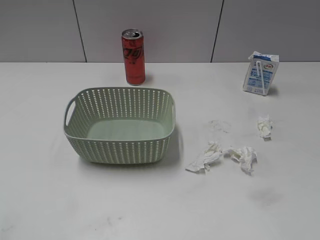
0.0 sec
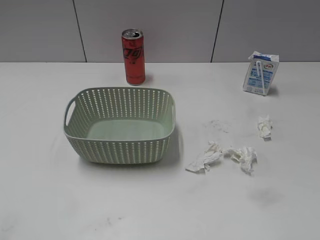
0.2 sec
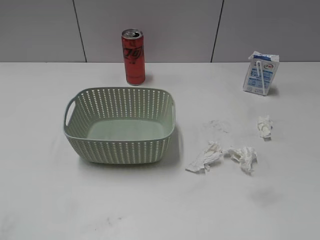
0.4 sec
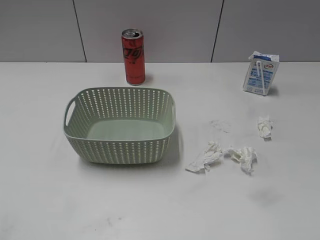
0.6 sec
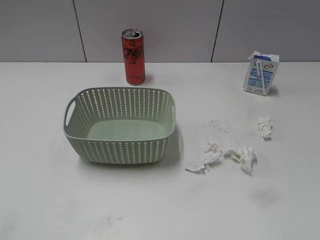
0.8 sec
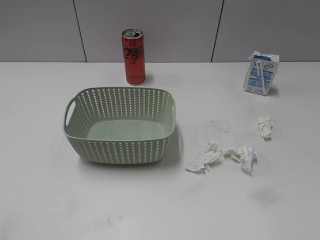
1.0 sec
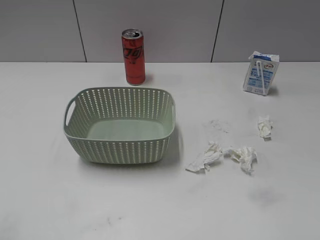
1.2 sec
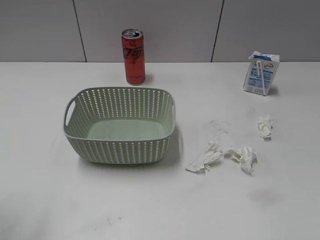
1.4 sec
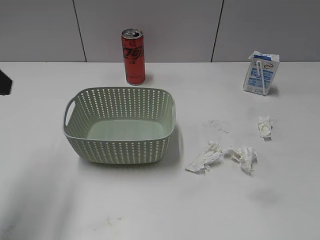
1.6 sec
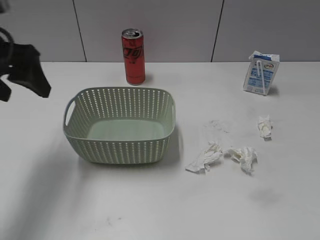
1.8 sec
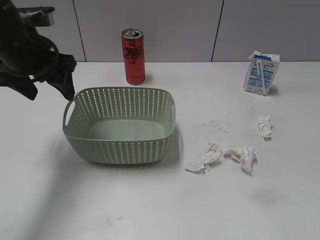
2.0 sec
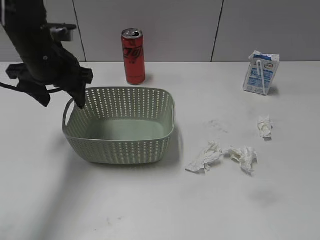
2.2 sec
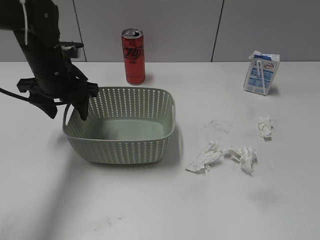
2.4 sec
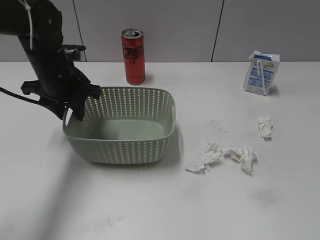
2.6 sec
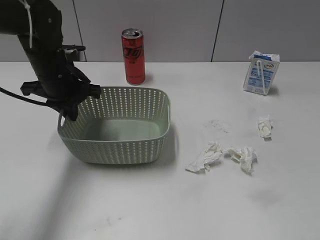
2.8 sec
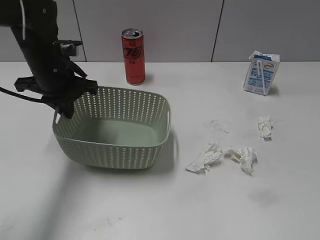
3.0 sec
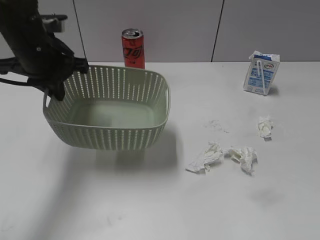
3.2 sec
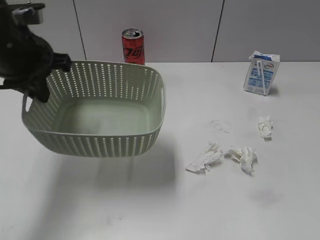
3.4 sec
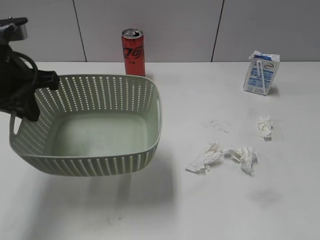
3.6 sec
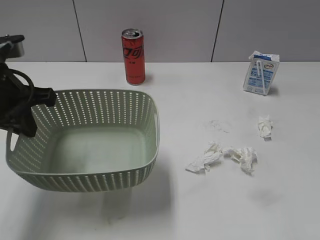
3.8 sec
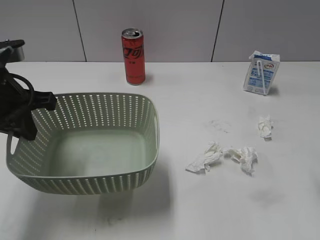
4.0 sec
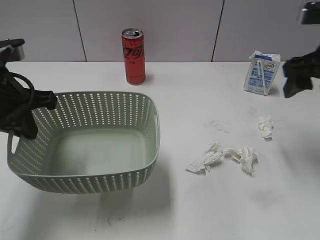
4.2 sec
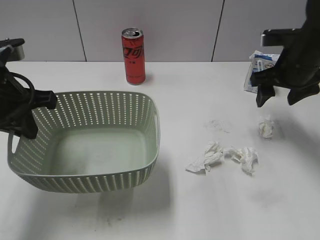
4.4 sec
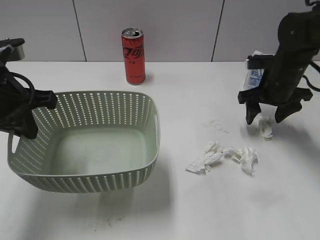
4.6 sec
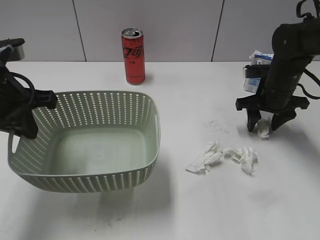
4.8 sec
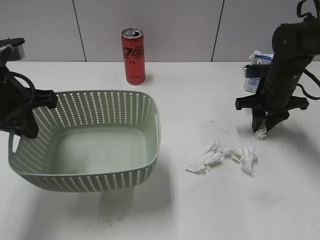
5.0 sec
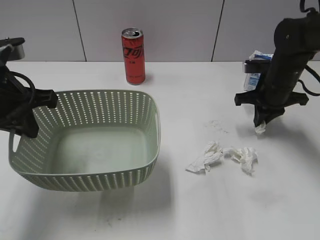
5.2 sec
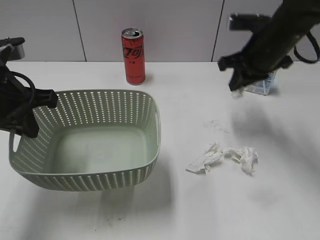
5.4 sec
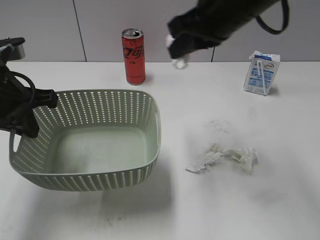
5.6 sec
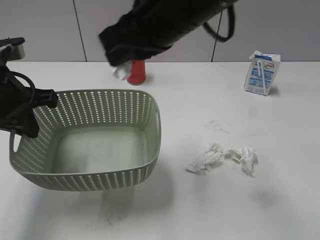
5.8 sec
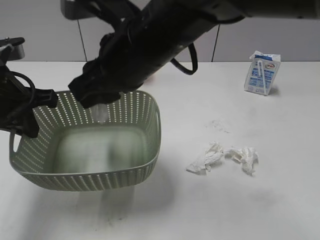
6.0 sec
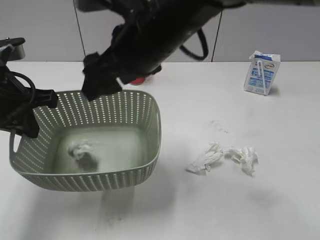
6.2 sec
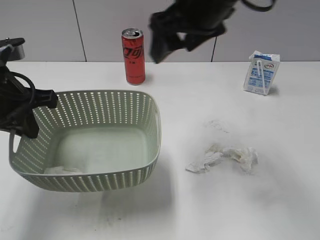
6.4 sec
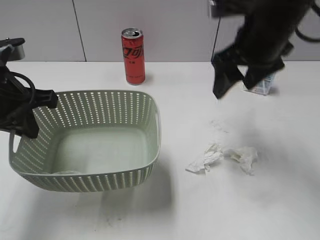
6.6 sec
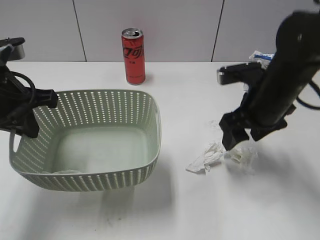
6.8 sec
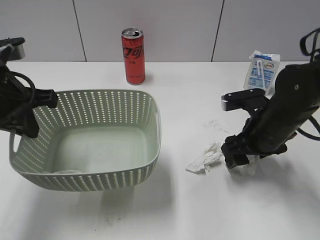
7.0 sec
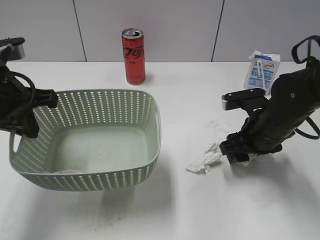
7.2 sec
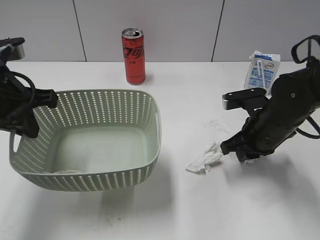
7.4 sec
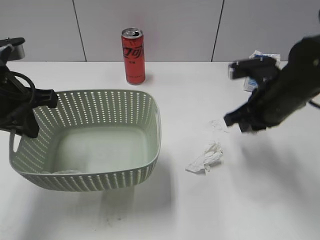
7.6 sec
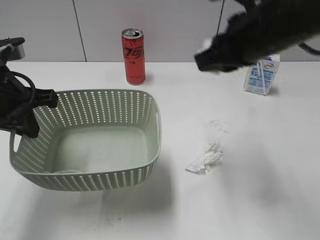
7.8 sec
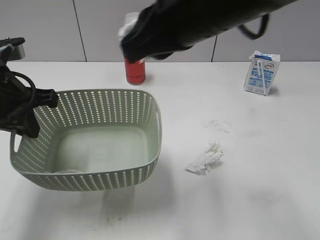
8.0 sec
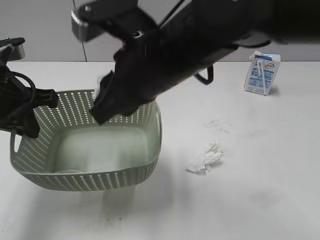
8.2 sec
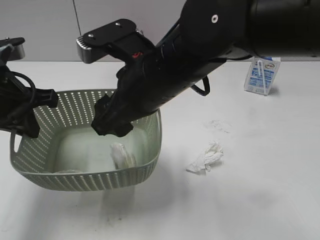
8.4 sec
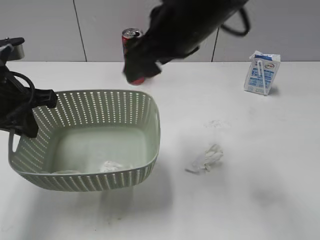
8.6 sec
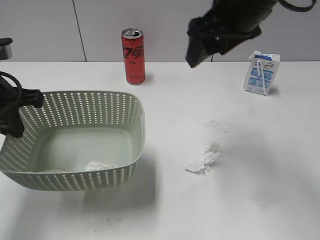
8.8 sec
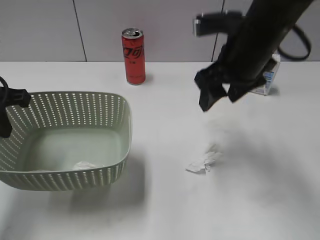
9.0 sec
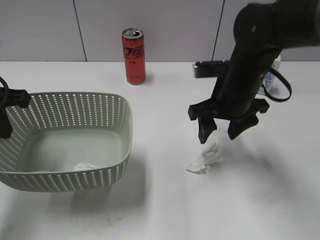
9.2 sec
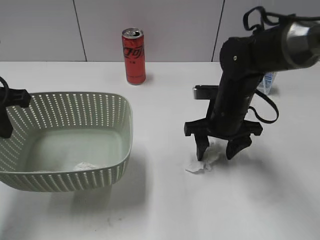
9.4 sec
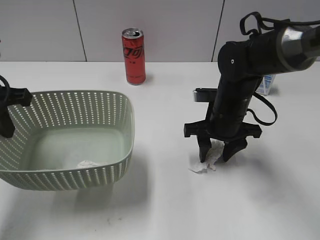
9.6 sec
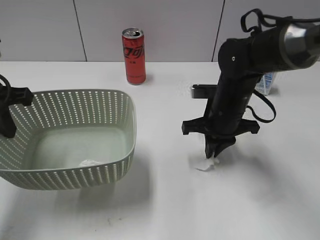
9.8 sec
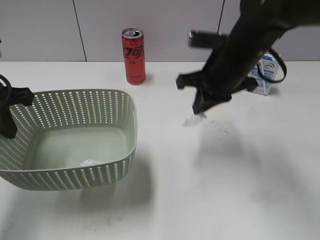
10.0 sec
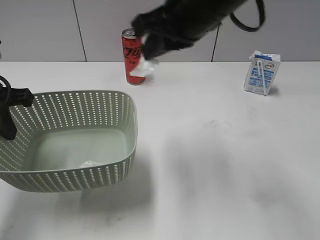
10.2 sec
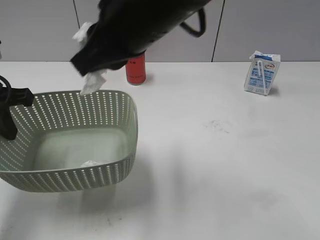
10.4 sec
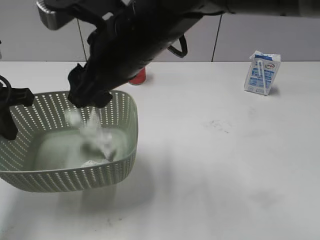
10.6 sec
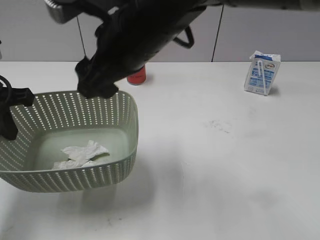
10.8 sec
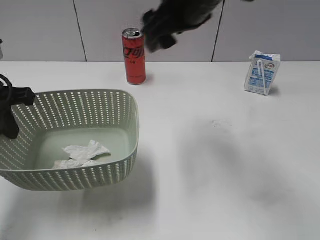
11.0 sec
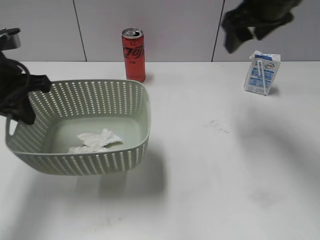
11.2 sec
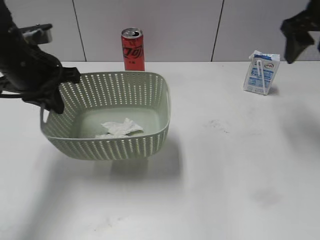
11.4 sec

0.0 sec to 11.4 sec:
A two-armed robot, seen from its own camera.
Step, 1.6 sec to 3.0 sec: Grasp the basket with left gripper.
Step, 3.2 sec to 3.4 sec: Lift the basket with left gripper.
Step, 3.6 sec to 5.2 sec: Grasp the waste paper with right gripper.
Step, 5.4 sec to 6.4 sec: Place the waste paper in the basket with right gripper.
Step, 6.6 sec to 7.2 sec: Grasp the waste paper with right gripper.
Step, 7.4 sec to 8.4 sec: Place the waste paper in the basket with right gripper.
Step, 8.6 sec to 9.8 sec: Grasp the waste paper with right gripper.
Step, 10.0 sec to 10.8 sec: Place the waste paper in the basket with right gripper.
1.4 sec to 2.8 sec: The left gripper goes approximately 30 cm forward, downward and to the right, and closes.
2.8 sec to 4.2 sec: The right gripper heads forward, covering approximately 30 cm. Meanwhile the left gripper moves backward and upward, about 15 cm.
4.2 sec to 5.6 sec: The right gripper heads to the left, covering roughly 15 cm, goes downward and returns, roughly 15 cm each way, and closes.
5.6 sec to 7.2 sec: The right gripper moves downward and to the right, approximately 20 cm, and opens.
7.2 sec to 8.6 sec: The right gripper swings up and down, about 20 cm each way, with 2 reversals, and closes and opens again.
8.6 sec to 10.0 sec: The right gripper travels to the right by roughly 5 cm, travels downward and back again, some 20 cm each way, and closes its fingers.
10.0 sec to 11.4 sec: The right gripper heads to the right and upward, covering roughly 15 cm, and opens up. Meanwhile the left gripper goes some 10 cm forward and to the right.

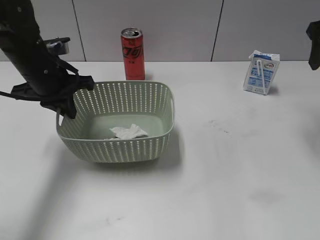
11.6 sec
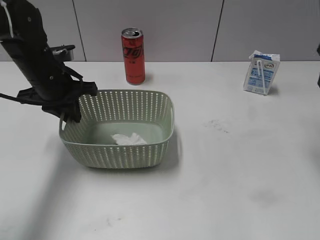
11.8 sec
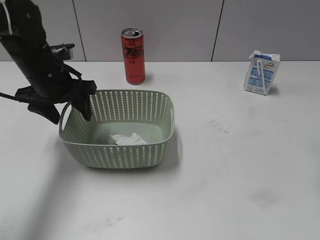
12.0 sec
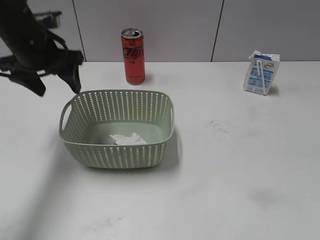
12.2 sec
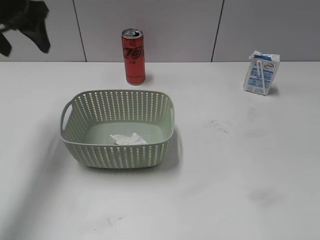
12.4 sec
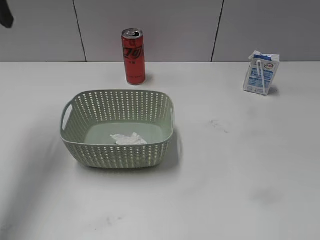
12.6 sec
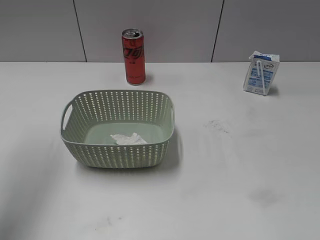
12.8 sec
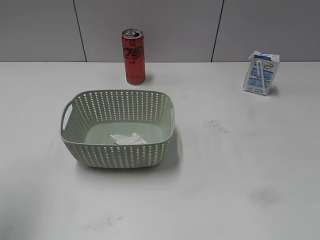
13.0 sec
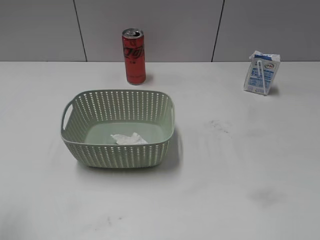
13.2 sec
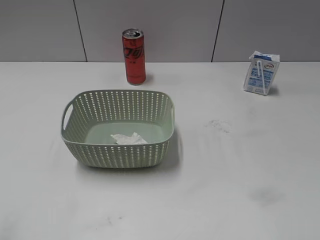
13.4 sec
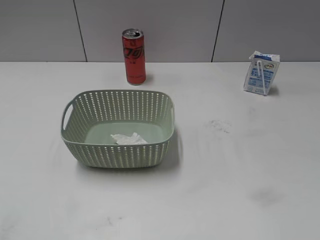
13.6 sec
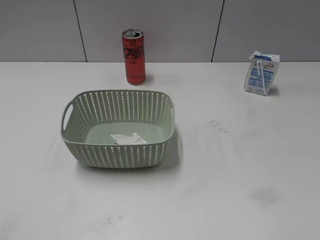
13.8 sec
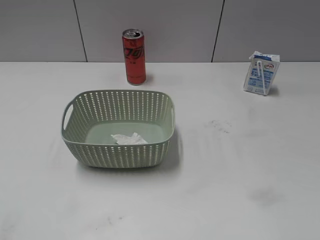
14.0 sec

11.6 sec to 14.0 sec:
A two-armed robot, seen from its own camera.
11.6 sec to 12.8 sec: The right gripper shifts approximately 35 cm backward. Meanwhile the left gripper moves upward, to the left and backward, about 25 cm, and opens.
12.8 sec to 14.0 sec: The left gripper shifts some 30 cm backward and downward.

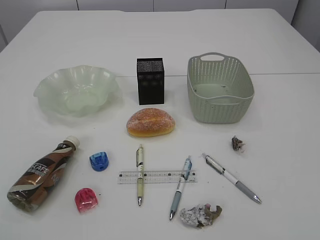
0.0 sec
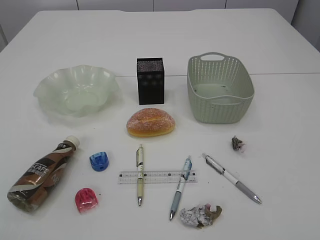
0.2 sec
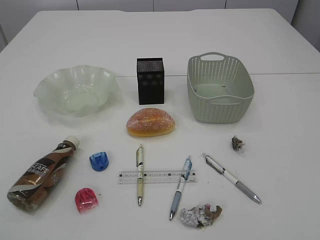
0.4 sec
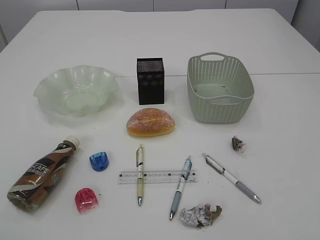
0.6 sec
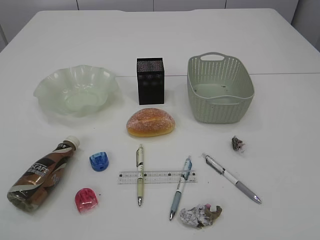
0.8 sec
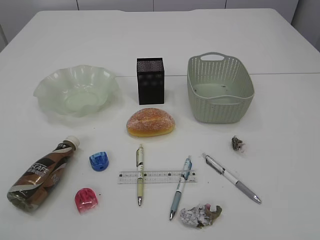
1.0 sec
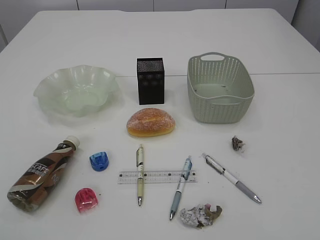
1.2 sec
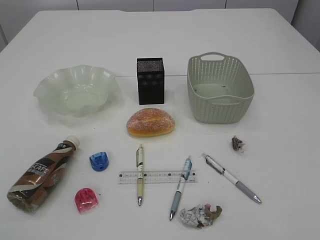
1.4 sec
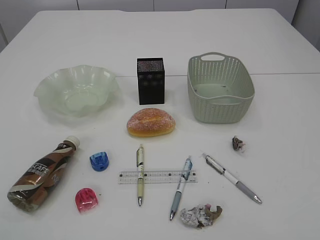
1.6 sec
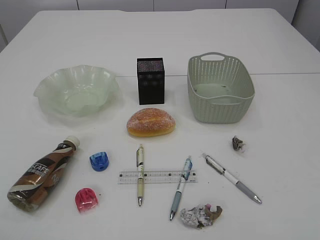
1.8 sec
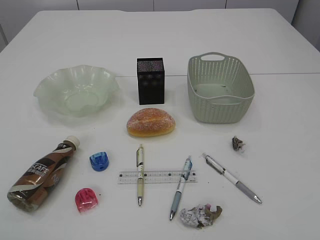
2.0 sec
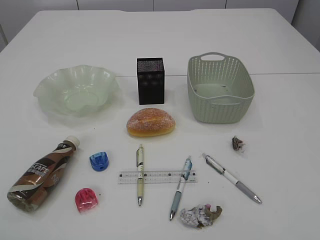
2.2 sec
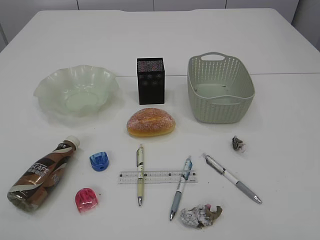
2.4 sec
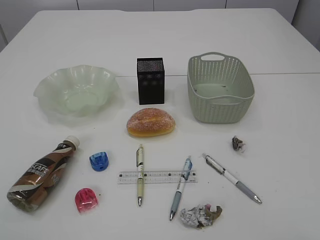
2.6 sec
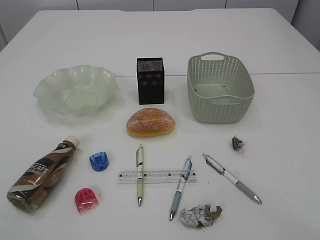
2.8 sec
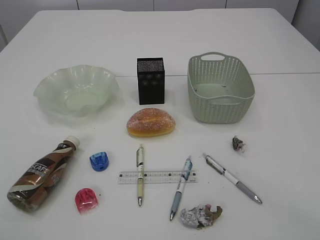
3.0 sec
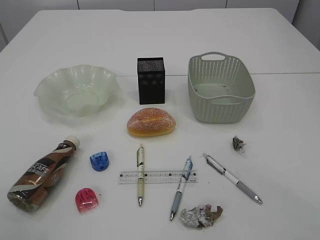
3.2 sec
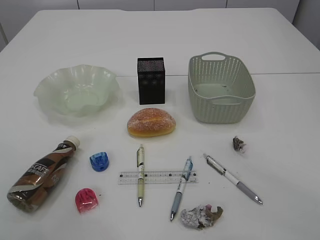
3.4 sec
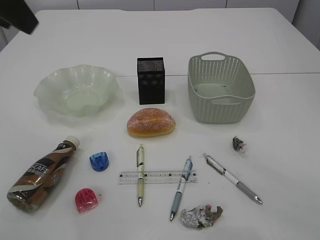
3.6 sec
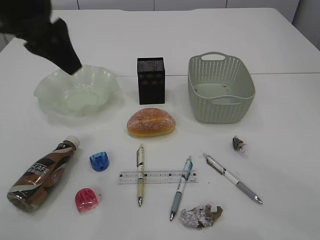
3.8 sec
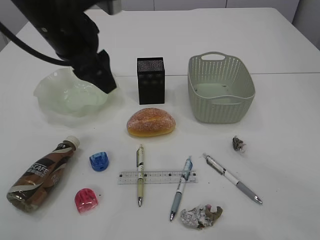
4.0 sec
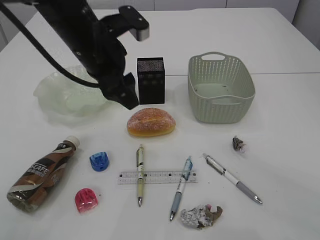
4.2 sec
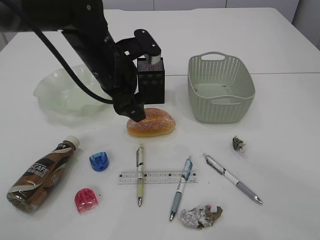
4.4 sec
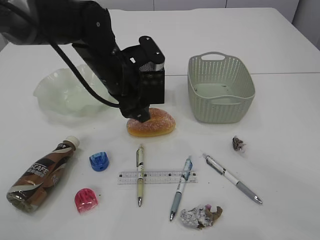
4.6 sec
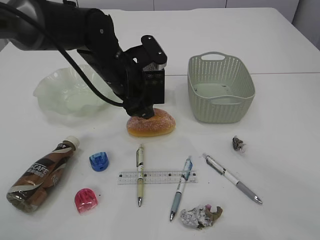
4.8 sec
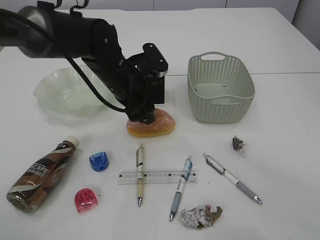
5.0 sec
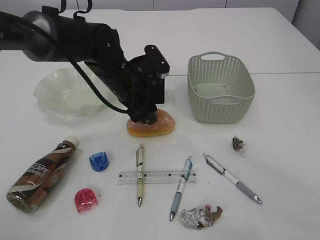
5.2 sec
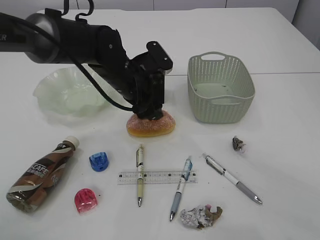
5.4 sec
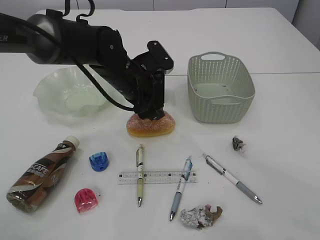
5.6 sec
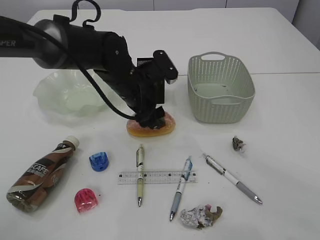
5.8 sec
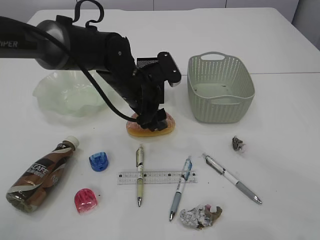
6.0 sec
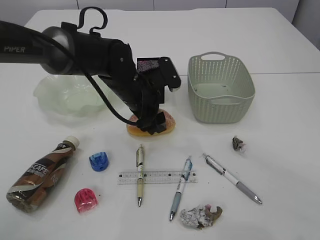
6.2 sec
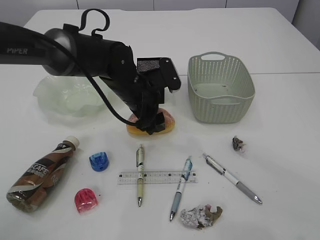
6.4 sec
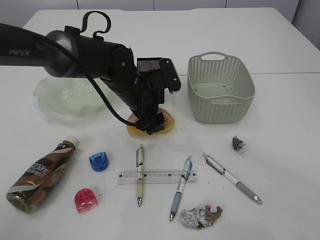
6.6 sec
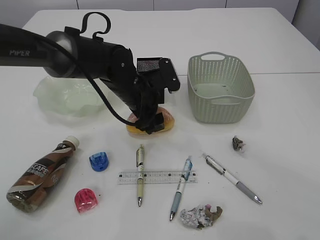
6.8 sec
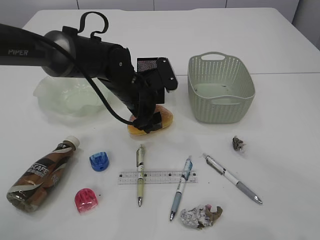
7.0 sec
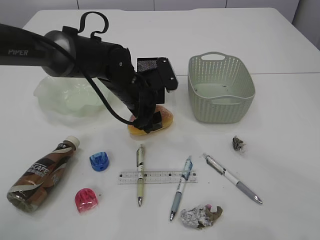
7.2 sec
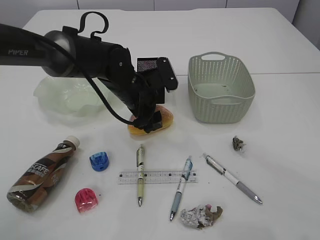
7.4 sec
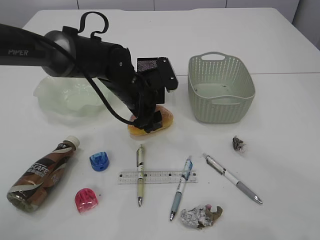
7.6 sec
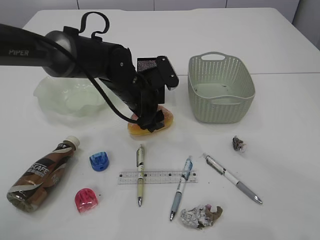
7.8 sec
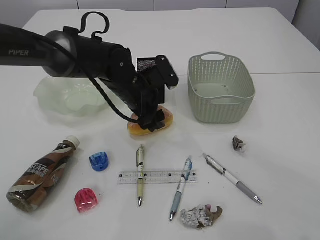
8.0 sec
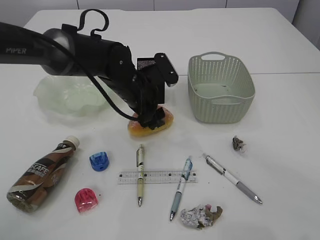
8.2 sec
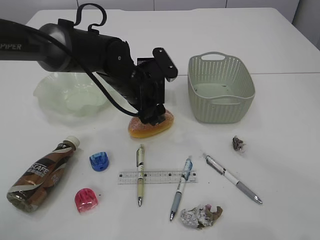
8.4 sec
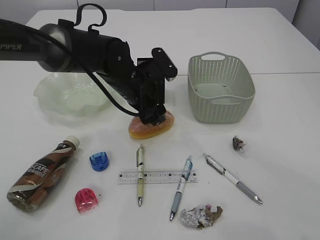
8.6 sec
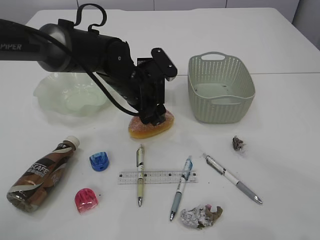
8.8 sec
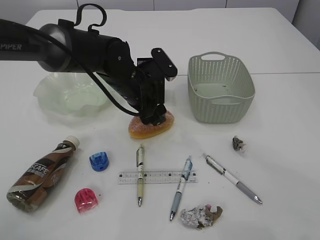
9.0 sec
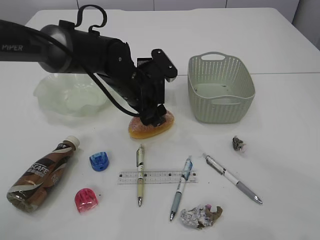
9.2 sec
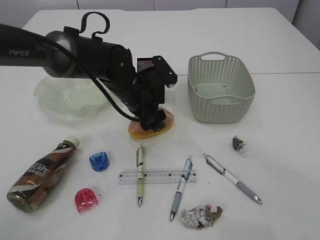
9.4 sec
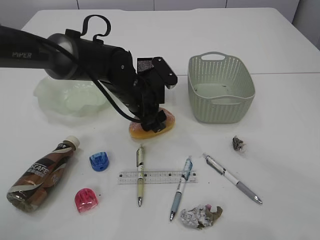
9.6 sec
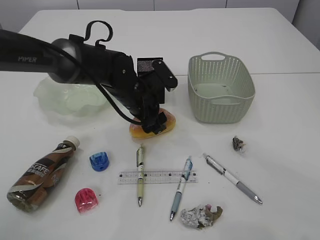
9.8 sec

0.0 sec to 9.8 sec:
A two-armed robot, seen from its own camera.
2.8 sec to 4.2 sec: The right gripper shifts approximately 15 cm forward, while the left gripper goes about 35 cm forward, to the right and downward.
4.2 sec to 5.6 sec: The left gripper moves downward, approximately 10 cm.
5.6 sec to 9.8 sec: The grippers move only a little.
